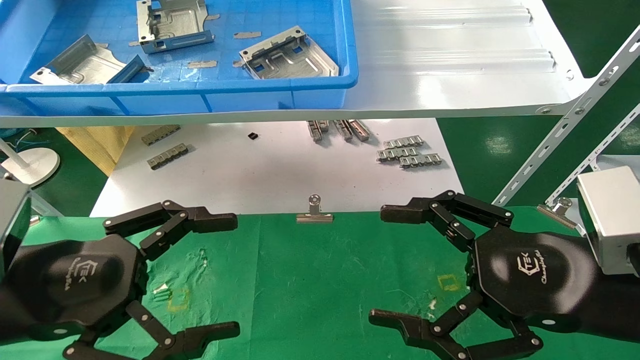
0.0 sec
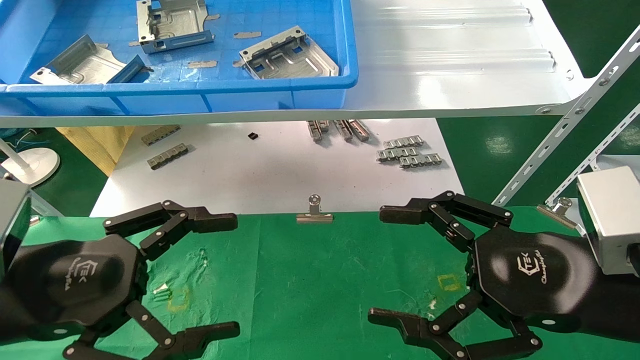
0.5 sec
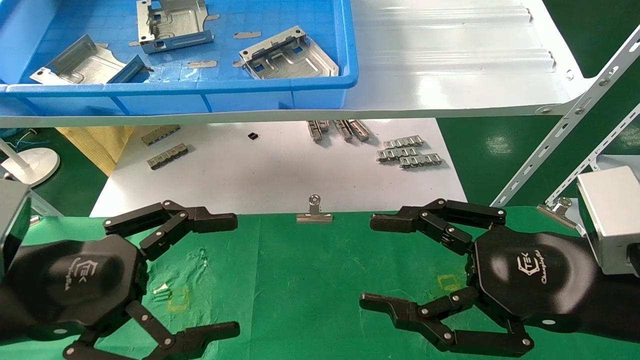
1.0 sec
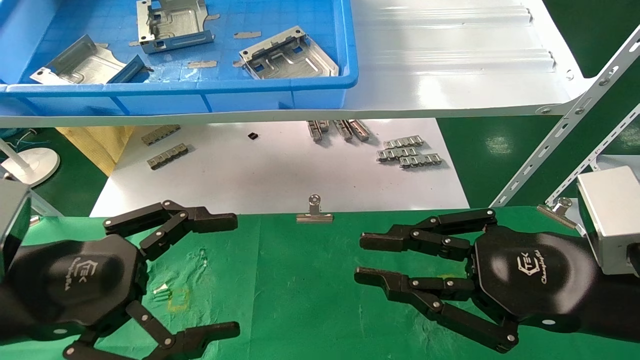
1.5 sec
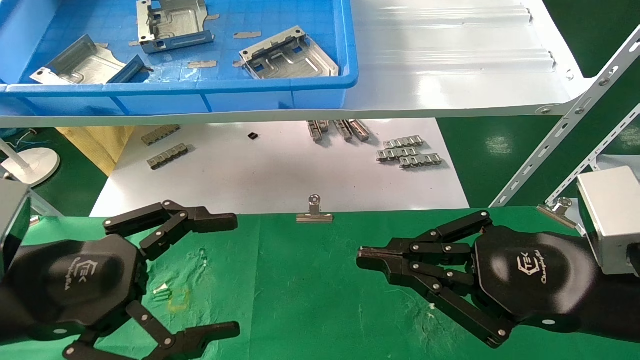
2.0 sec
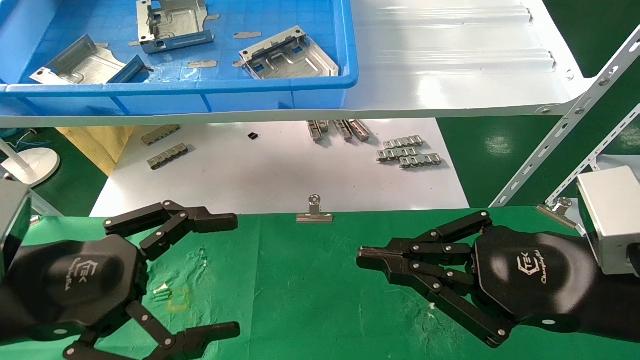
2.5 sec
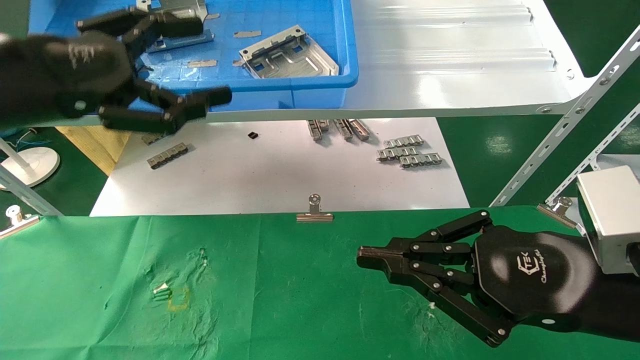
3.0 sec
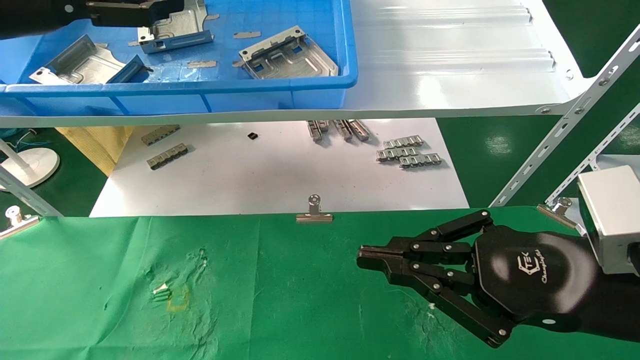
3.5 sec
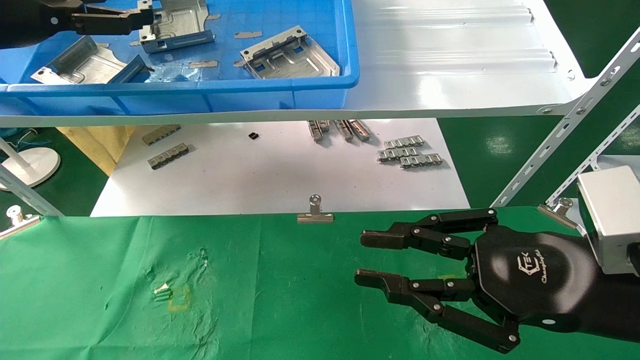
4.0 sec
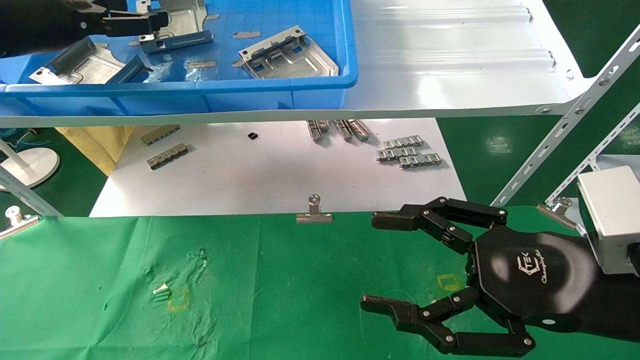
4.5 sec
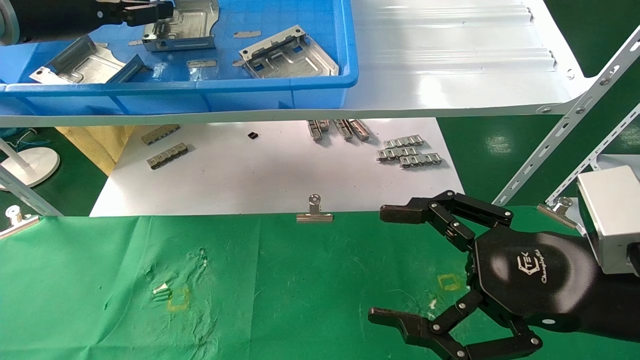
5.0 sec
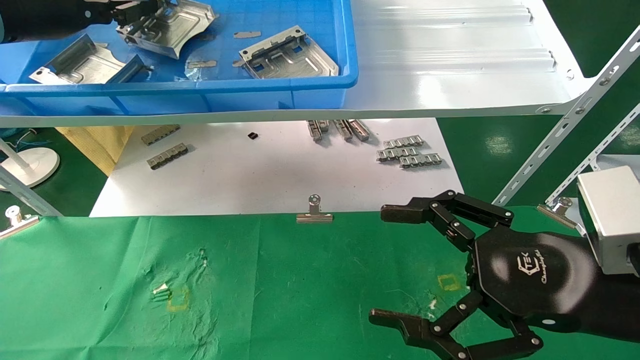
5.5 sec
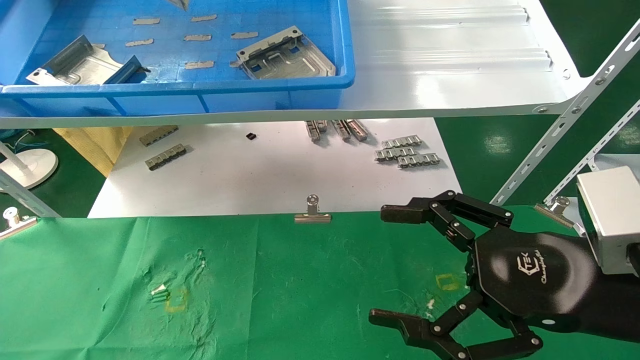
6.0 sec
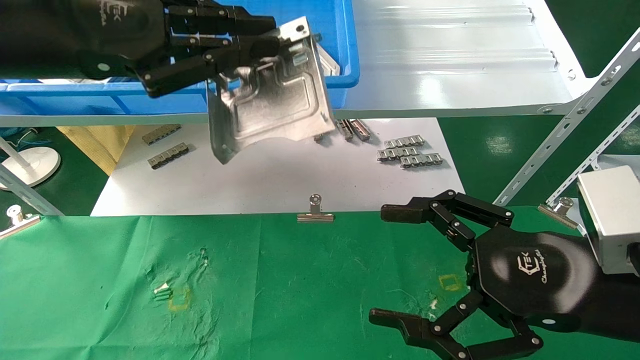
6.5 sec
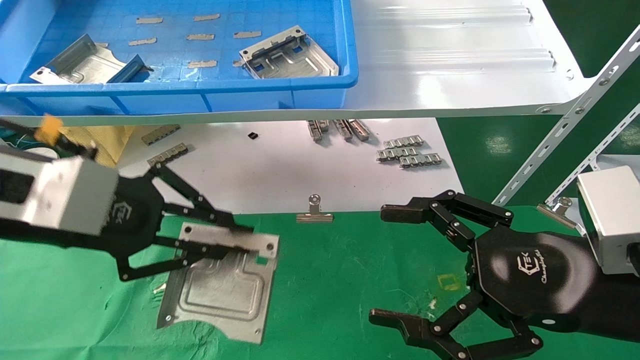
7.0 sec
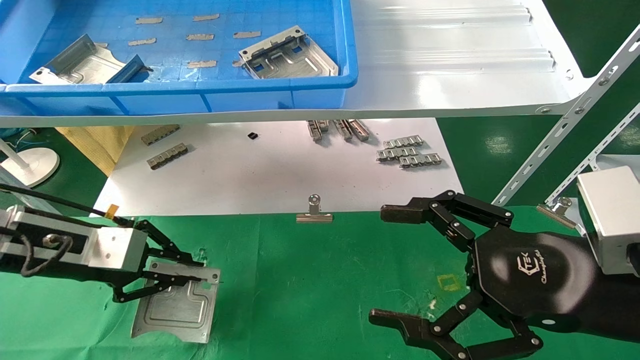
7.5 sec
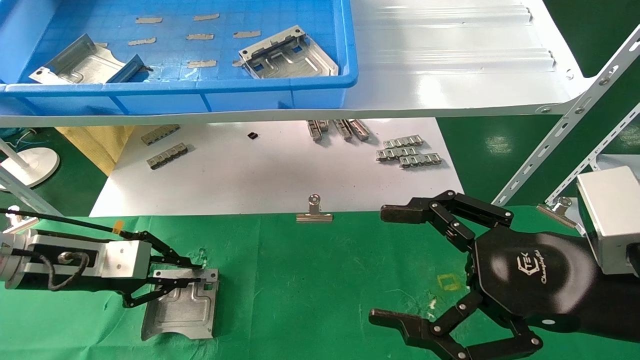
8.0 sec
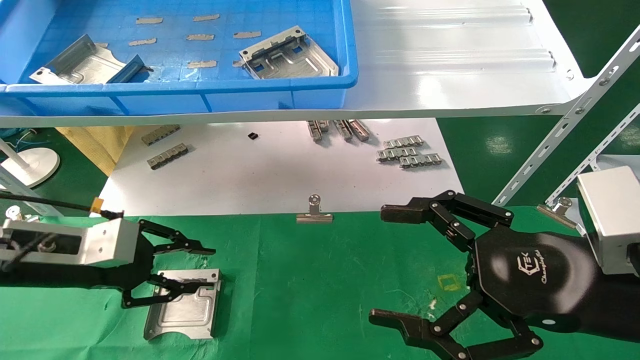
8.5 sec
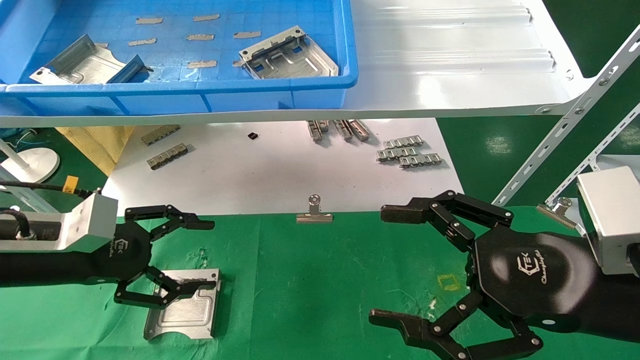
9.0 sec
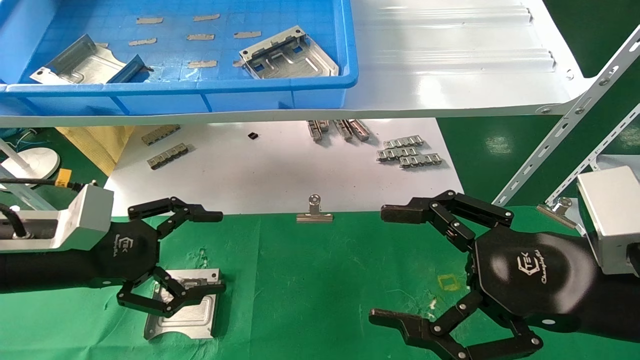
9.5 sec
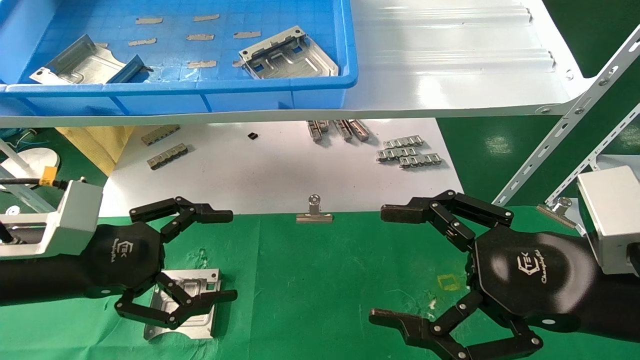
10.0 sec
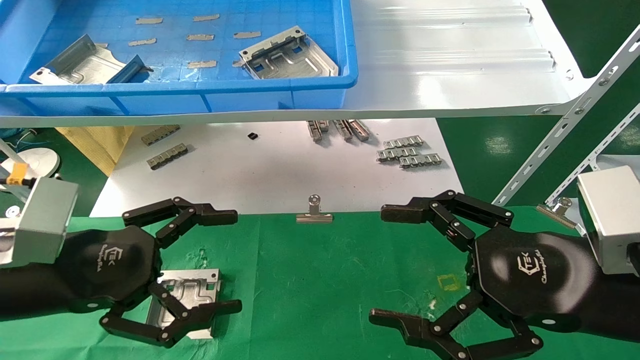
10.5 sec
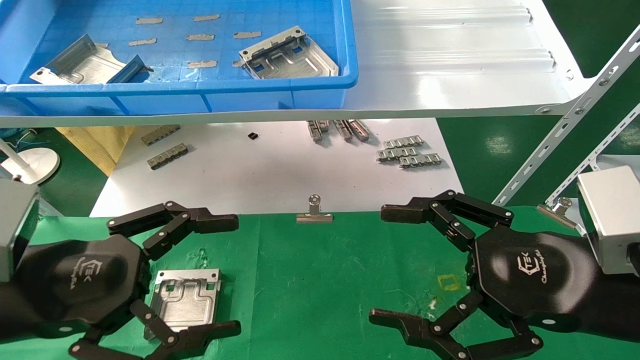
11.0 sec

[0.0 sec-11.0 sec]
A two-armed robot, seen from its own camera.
Task of the whole recording: use the mechanical arm to pick up the parts and place them on the table.
Step, 1.5 sec to 5.0 sec: Pick up the hard drive bracket from the feeding area.
Step, 5.5 sec to 8.0 sec: Place the hard drive bracket into the box.
0.0 sec to 2.0 sec: The right gripper closes its fingers.
2.0 sec to 3.5 sec: The left gripper is displaced upward and forward by about 25 cm.
3.5 sec to 5.5 sec: The right gripper opens; the left gripper heads forward, covering approximately 5 cm, and closes up.
5.5 sec to 7.5 sec: The left gripper goes approximately 25 cm downward.
7.5 sec to 9.0 sec: The left gripper opens its fingers.
9.0 sec to 11.0 sec: The left gripper heads backward and to the right, covering about 10 cm, and opens up.
